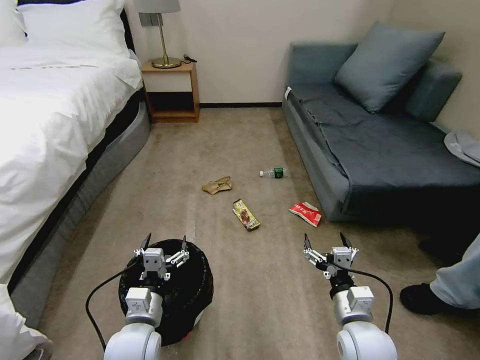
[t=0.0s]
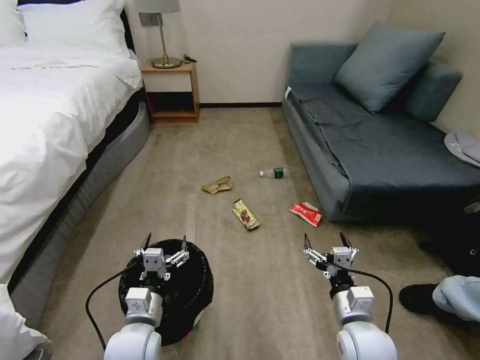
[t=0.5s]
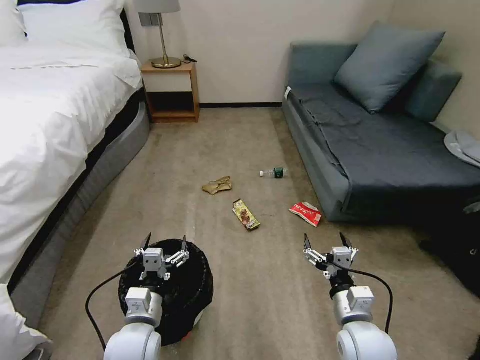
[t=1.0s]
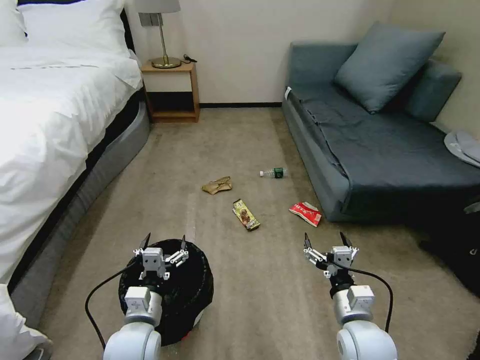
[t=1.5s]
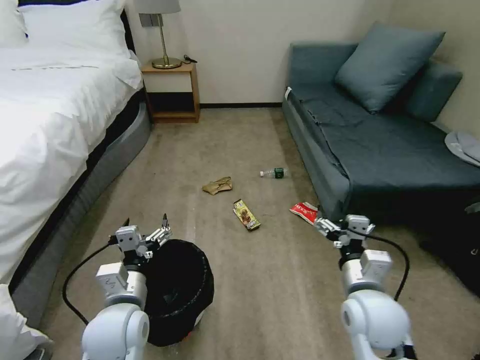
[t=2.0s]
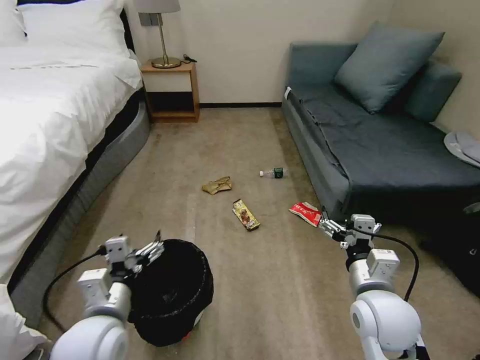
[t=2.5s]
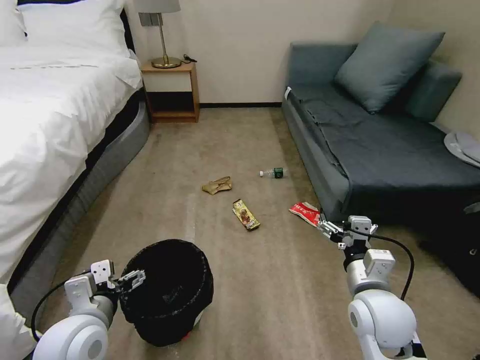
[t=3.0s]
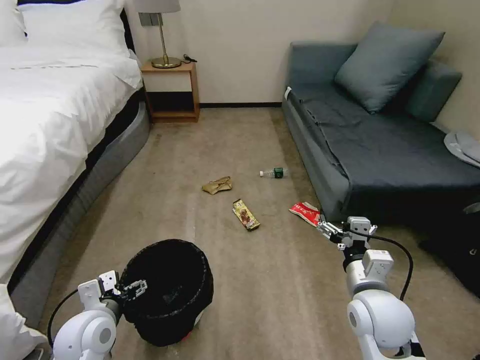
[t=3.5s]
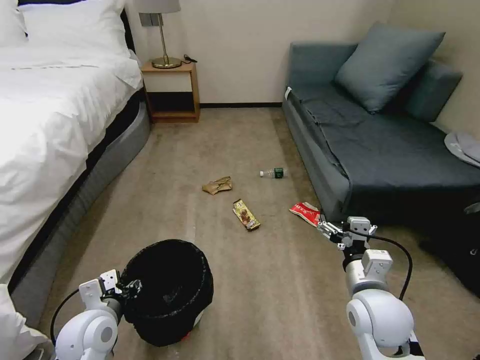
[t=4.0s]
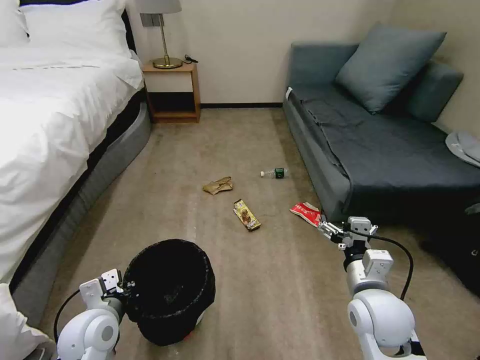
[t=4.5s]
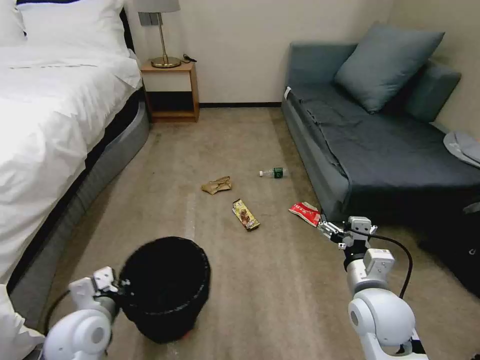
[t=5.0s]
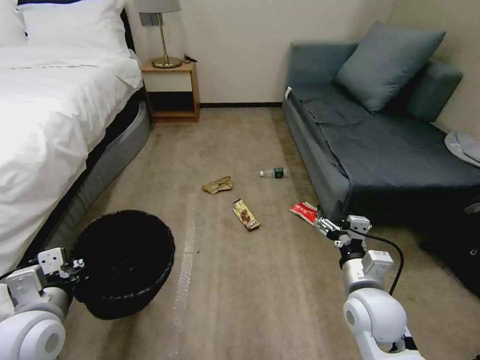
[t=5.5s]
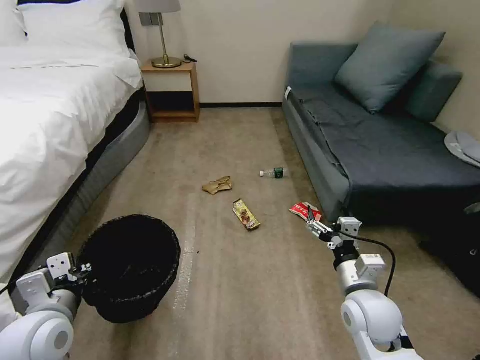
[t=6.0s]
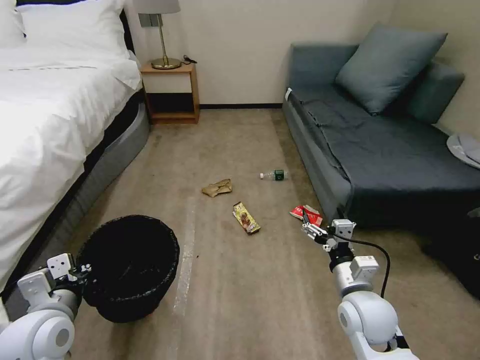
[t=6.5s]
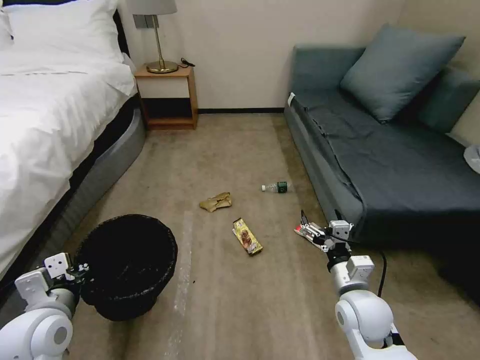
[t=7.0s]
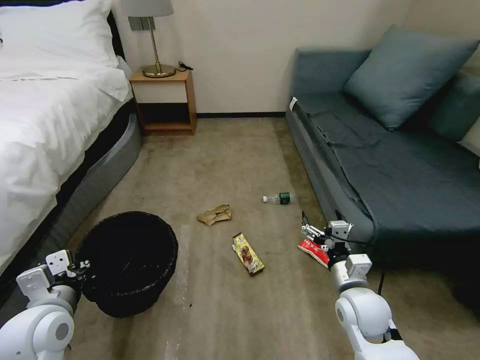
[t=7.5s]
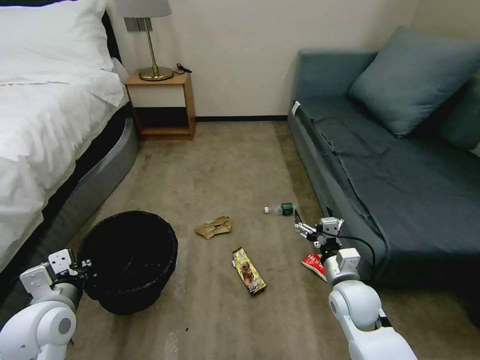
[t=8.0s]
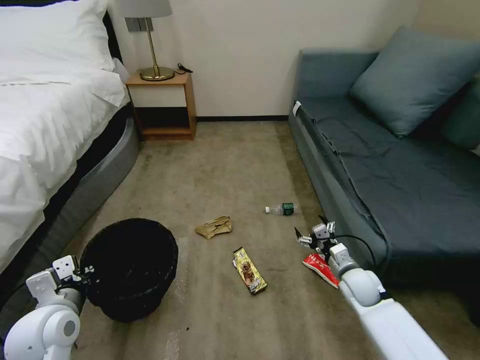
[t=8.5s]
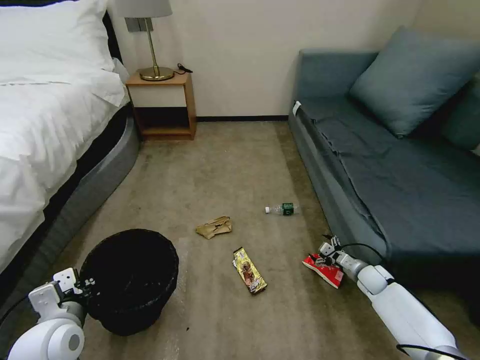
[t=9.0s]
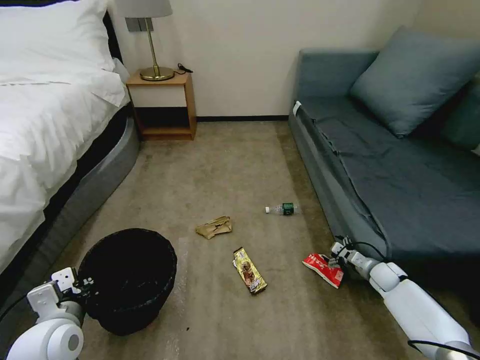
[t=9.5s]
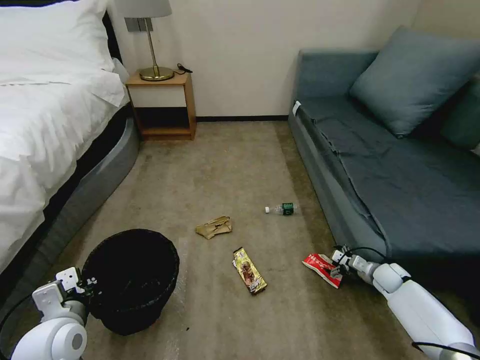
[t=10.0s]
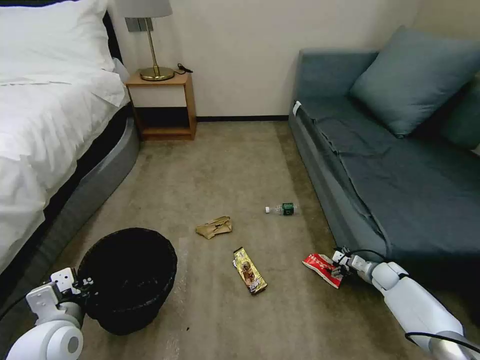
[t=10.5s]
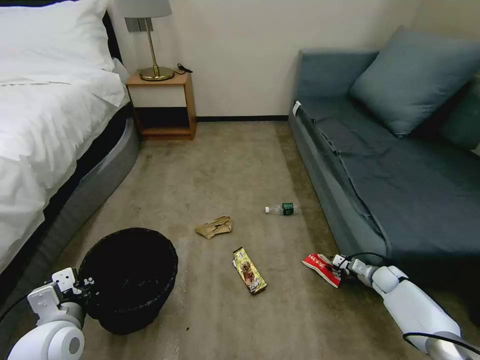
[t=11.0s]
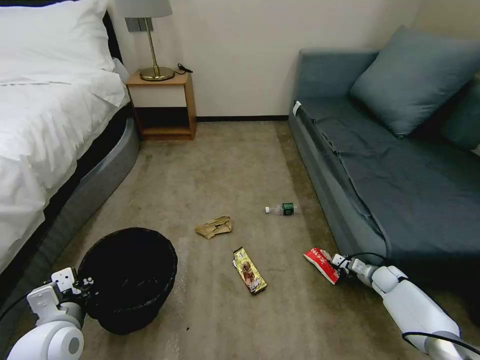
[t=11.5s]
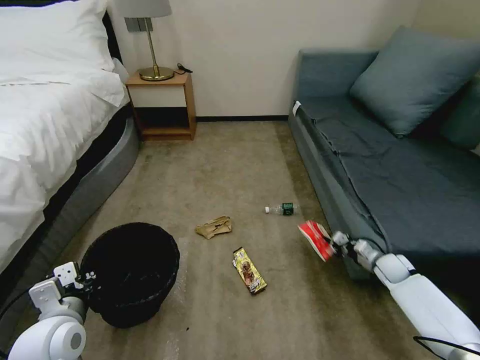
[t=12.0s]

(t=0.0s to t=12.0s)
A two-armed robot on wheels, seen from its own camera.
Task of the whole recording: Pick up the trash bin, then pick up the garbage on the floor and place it into the trash bin.
t=2.0s - t=4.0s: The left gripper heads to the left, covering some 5 cm, and closes up.
t=4.0s - t=6.0s: The left gripper heads upward, covering about 10 cm, and closes up.
t=6.0s - t=8.0s: The right gripper moves about 5 cm.
t=8.0s - t=10.0s: The right gripper travels to the right, downward and forward by roughly 30 cm.
t=10.0s - t=12.0s: The right gripper closes its fingers.

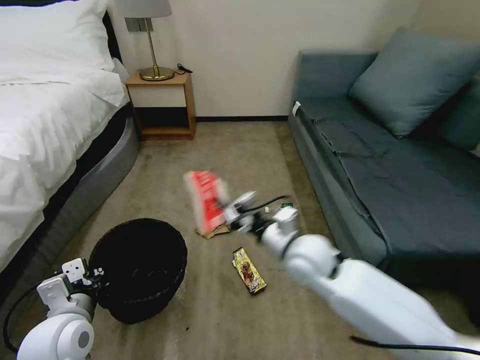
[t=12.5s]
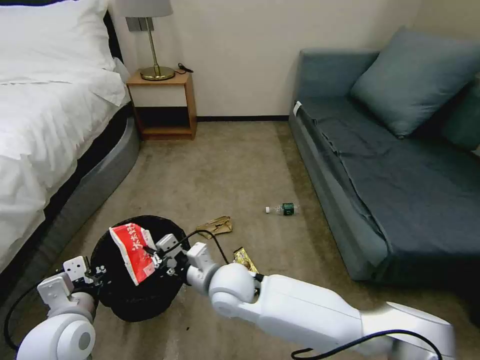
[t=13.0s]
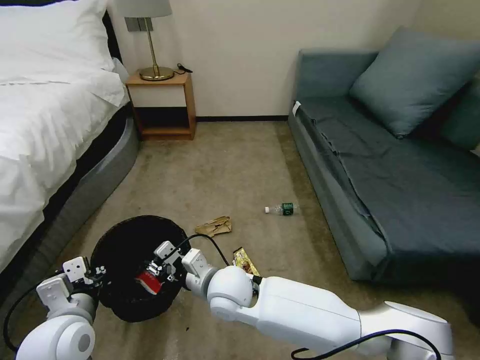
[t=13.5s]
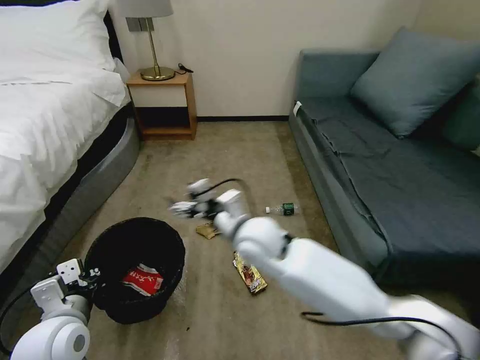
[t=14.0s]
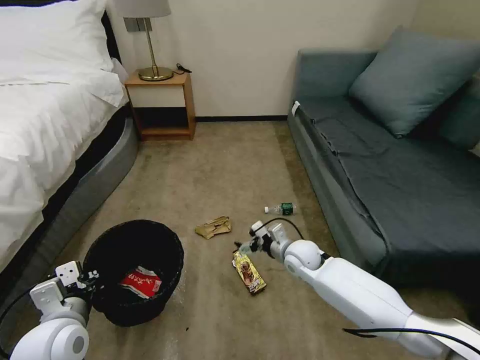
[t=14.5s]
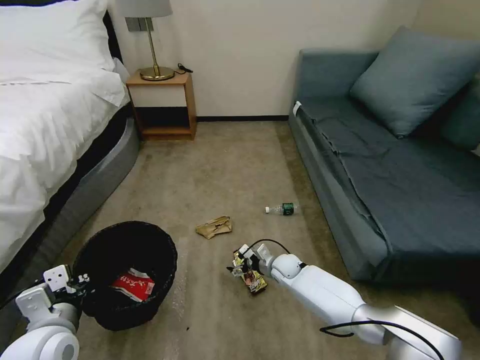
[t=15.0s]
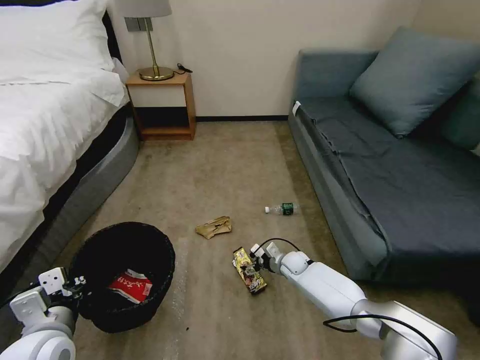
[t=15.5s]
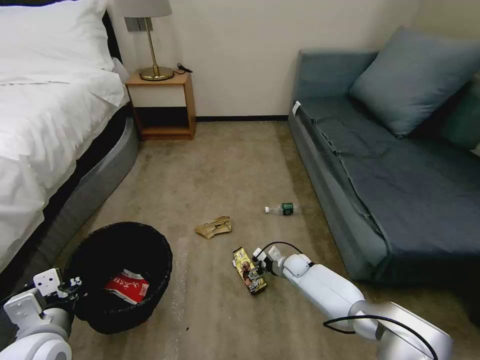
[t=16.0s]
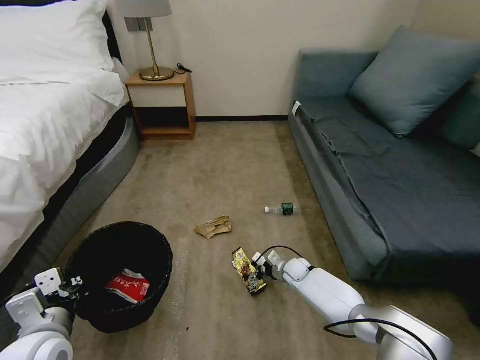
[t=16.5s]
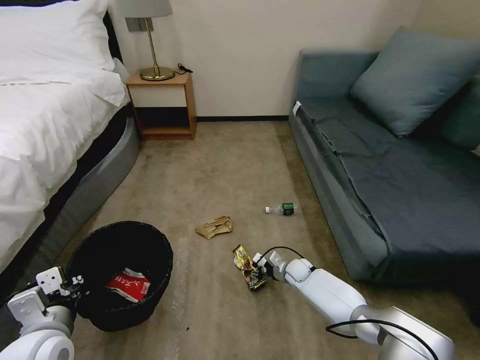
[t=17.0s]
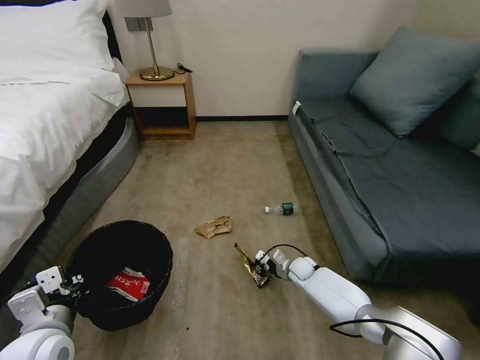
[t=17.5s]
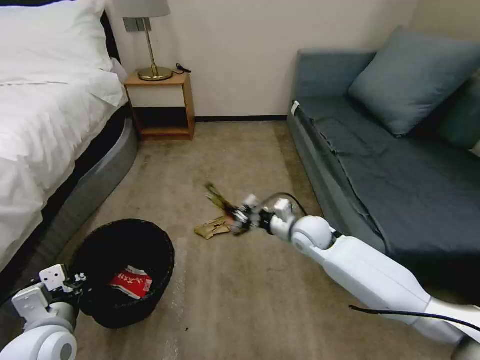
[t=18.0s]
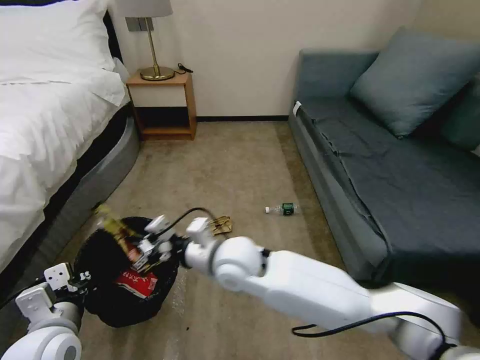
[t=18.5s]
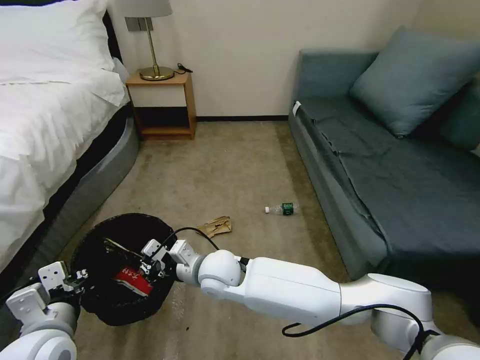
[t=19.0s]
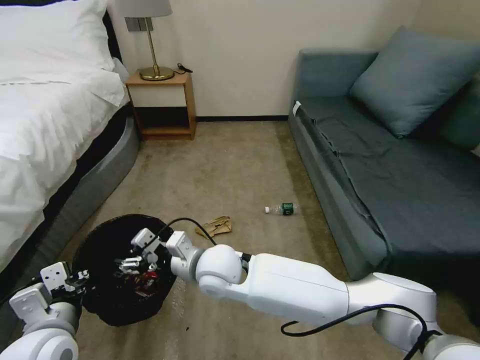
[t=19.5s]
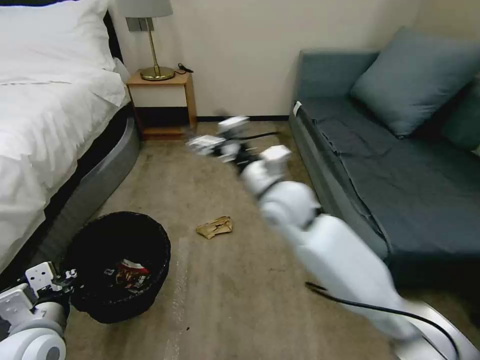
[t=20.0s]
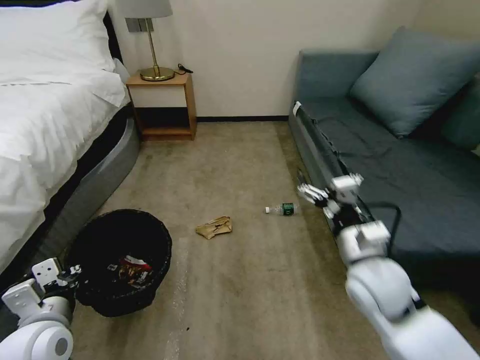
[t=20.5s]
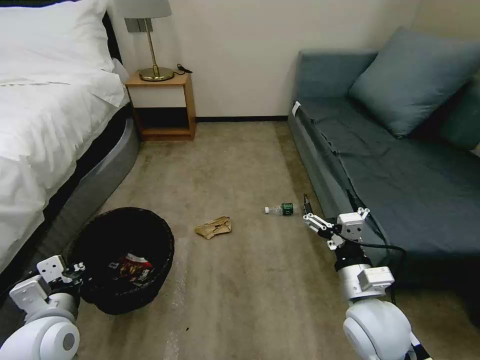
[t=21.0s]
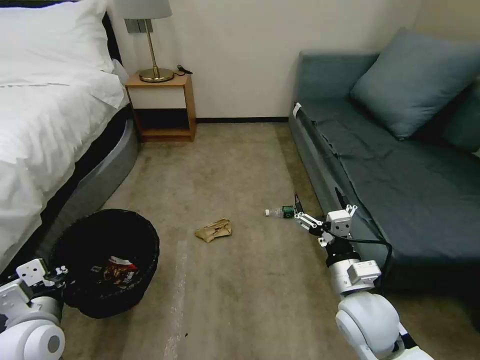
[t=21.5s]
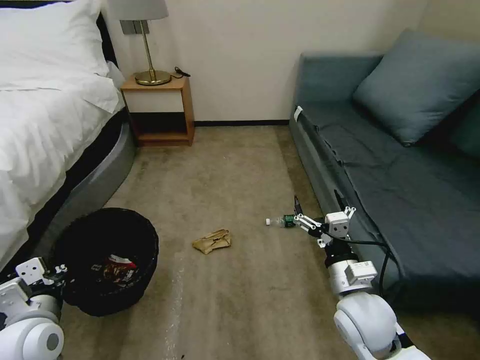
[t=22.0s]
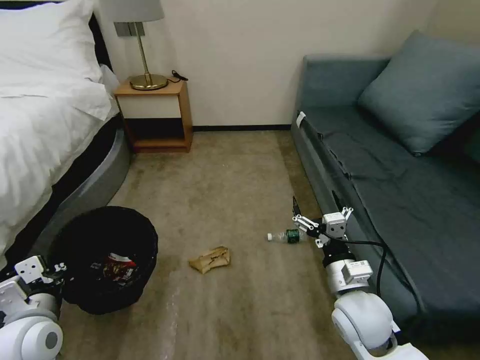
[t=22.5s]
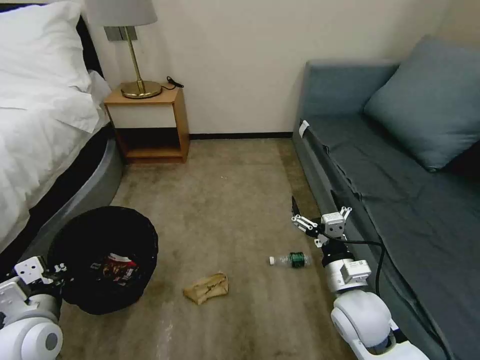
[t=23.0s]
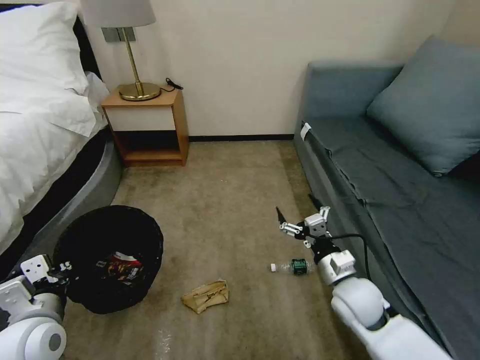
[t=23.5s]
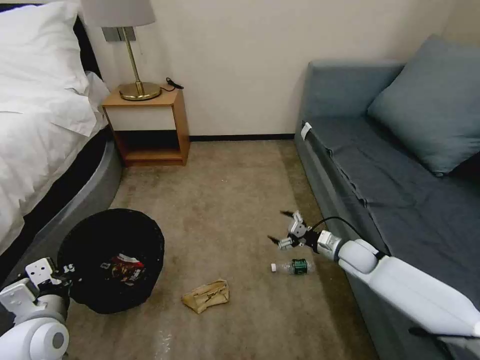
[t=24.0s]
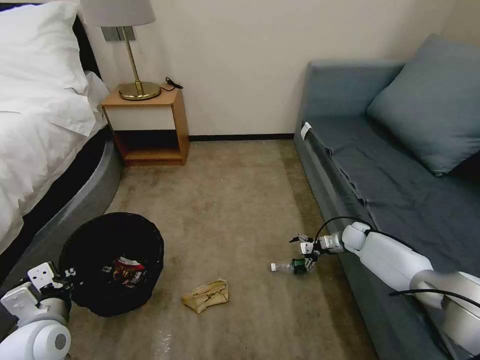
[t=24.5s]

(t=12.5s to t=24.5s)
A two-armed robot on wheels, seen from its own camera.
Task of the whole recording: Pick up the trash bin, then pick up the garbage on the floor and place it into the trash bin.
t=12.5s - t=14.5s: The right gripper is displaced downward and forward by approximately 15 cm, goes to the left and returns, some 15 cm each way, and opens up.
t=14.5s - t=16.5s: The right gripper goes roughly 15 cm downward.
t=16.5s - t=18.5s: The right gripper moves upward and to the left, about 35 cm, and closes.
t=18.5s - t=20.5s: The right gripper goes roughly 25 cm to the right, and opens its fingers.
t=20.5s - t=22.5s: The right gripper shifts about 5 cm downward.
t=22.5s - t=24.5s: The right gripper heads forward, to the right and downward, covering about 35 cm.

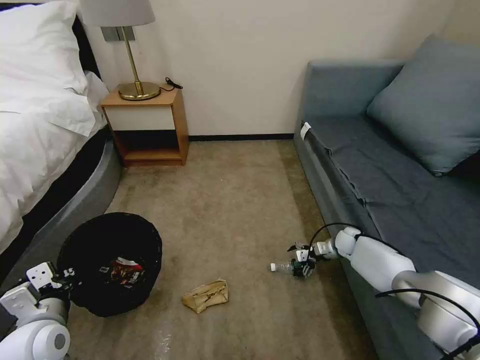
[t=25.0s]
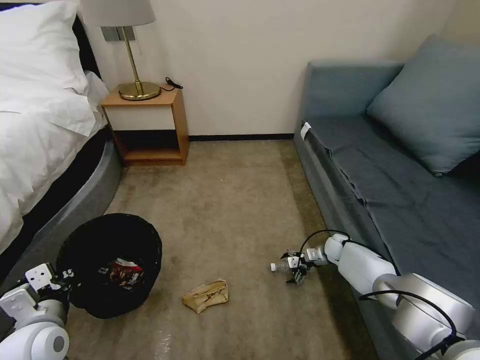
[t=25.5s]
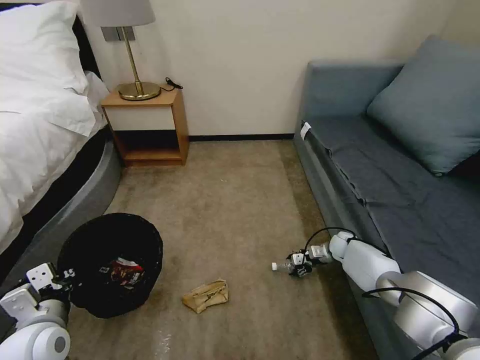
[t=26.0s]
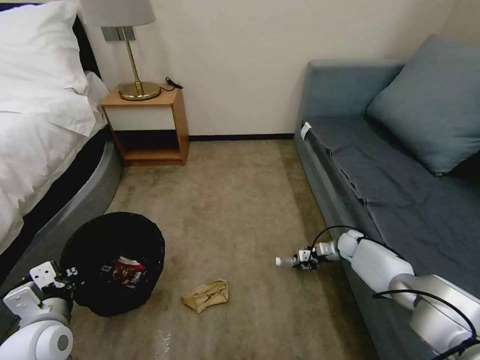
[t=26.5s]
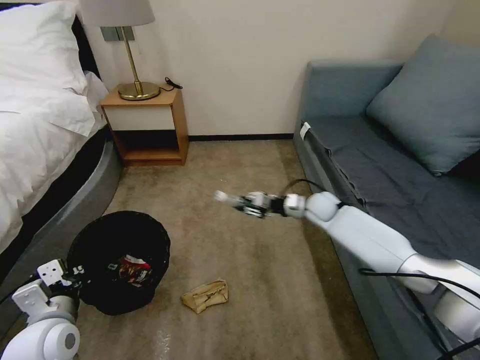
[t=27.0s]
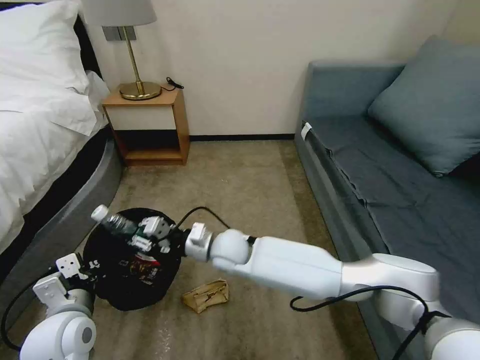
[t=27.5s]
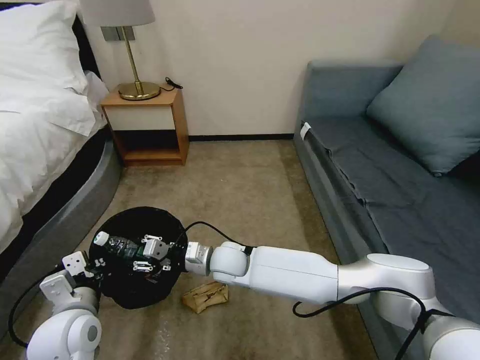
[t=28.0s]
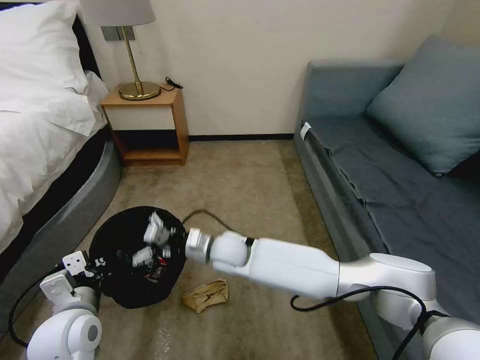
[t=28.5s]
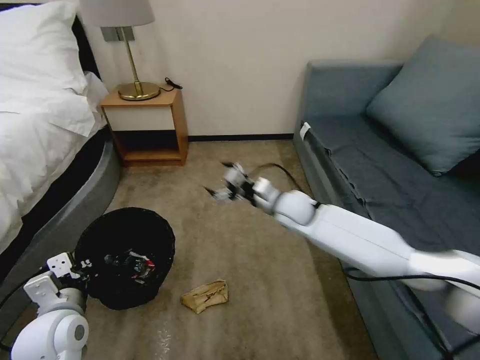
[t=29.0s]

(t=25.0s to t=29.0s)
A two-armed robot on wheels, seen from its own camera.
Task of the whole recording: Pick up the trash bin, then pick up the garbage on the floor and place it into the trash bin.
t=25.0s - t=27.0s: The right gripper goes some 20 cm upward and to the left, and closes its fingers.
t=27.0s - t=29.0s: The right gripper goes roughly 5 cm backward, moves approximately 25 cm to the left and comes back, and opens its fingers.
